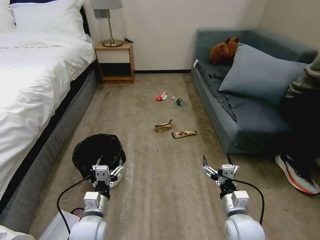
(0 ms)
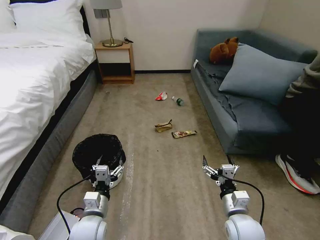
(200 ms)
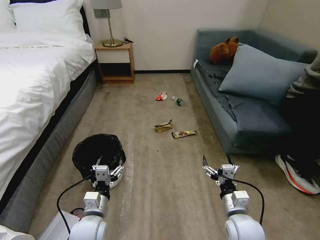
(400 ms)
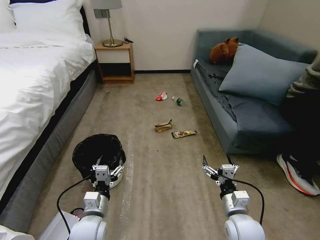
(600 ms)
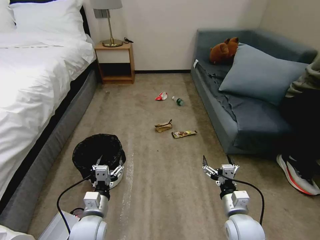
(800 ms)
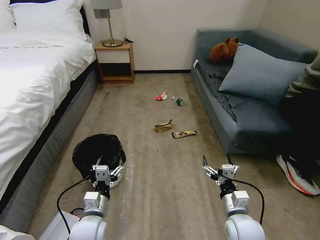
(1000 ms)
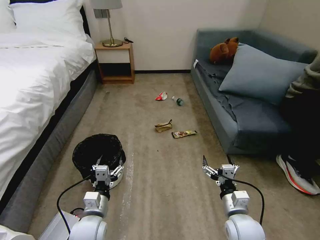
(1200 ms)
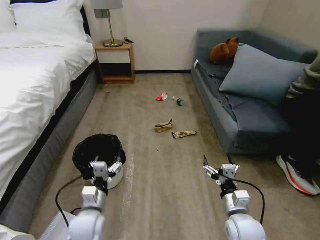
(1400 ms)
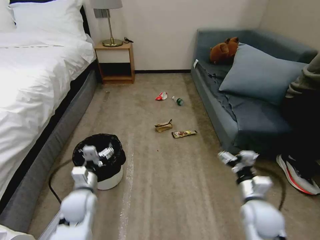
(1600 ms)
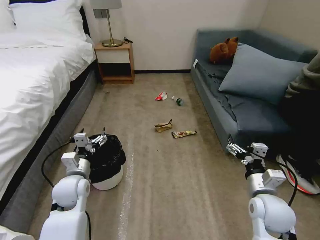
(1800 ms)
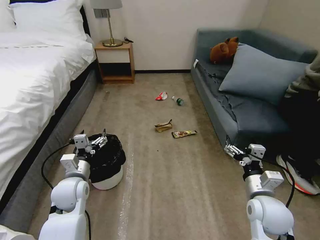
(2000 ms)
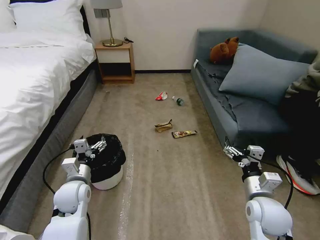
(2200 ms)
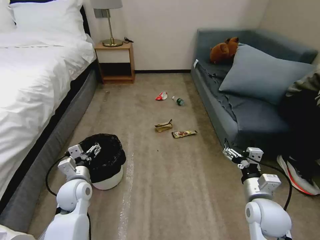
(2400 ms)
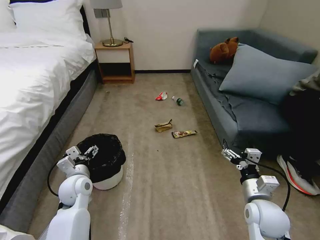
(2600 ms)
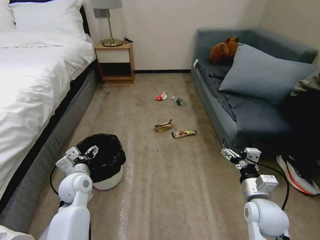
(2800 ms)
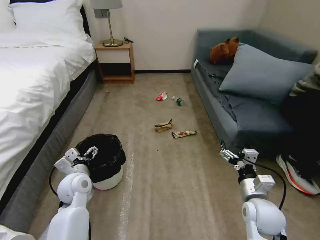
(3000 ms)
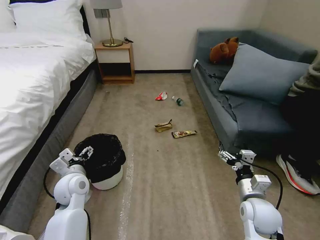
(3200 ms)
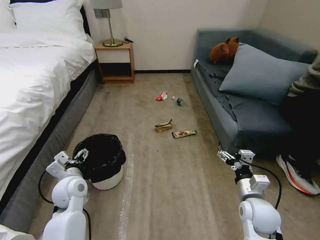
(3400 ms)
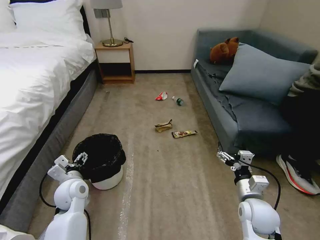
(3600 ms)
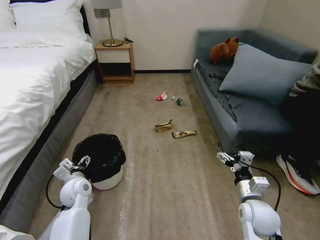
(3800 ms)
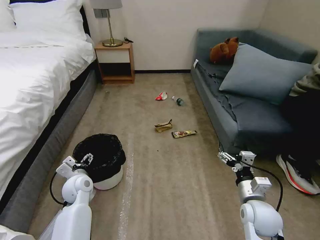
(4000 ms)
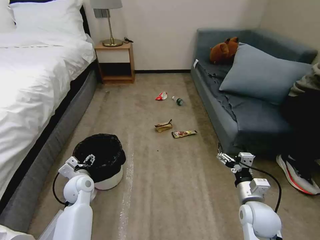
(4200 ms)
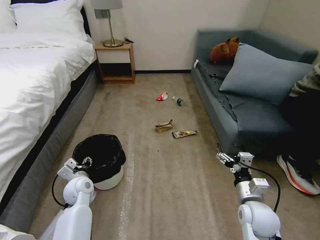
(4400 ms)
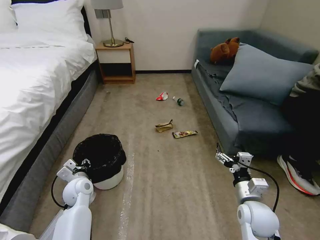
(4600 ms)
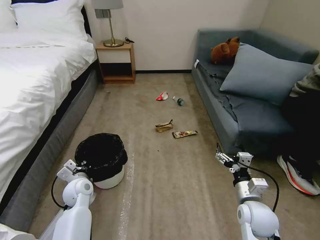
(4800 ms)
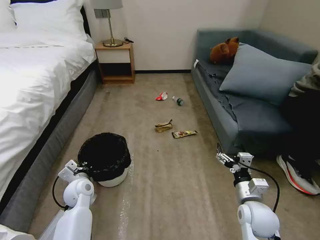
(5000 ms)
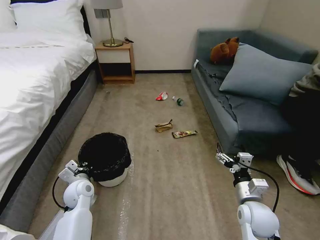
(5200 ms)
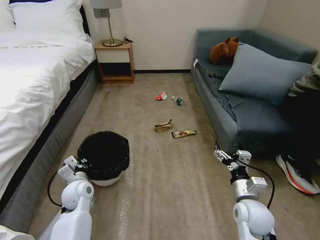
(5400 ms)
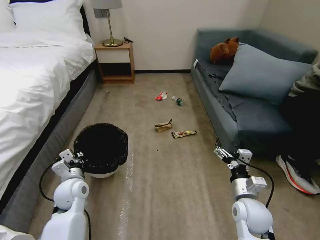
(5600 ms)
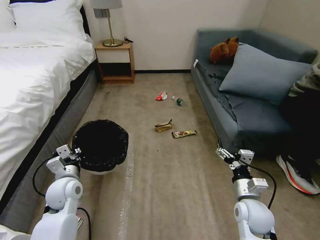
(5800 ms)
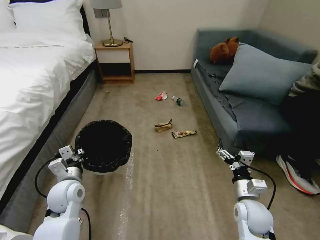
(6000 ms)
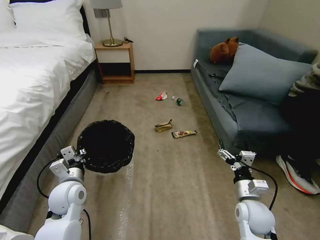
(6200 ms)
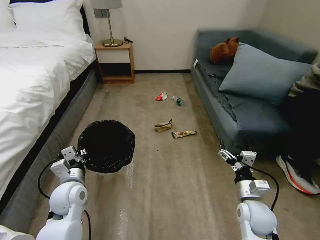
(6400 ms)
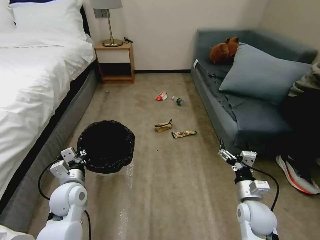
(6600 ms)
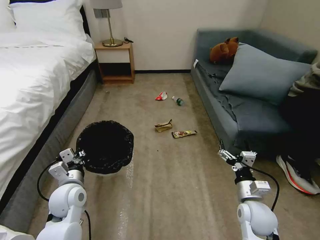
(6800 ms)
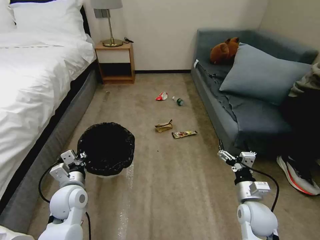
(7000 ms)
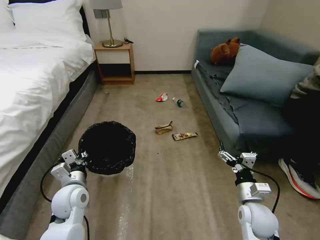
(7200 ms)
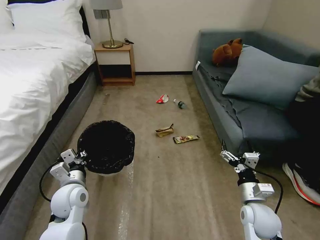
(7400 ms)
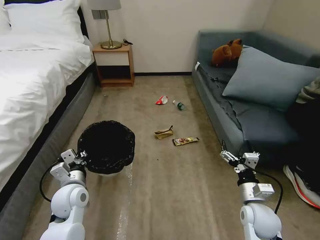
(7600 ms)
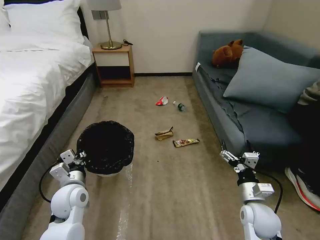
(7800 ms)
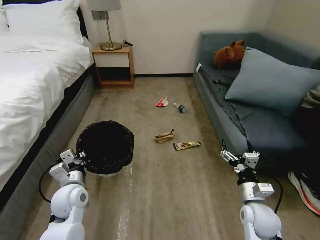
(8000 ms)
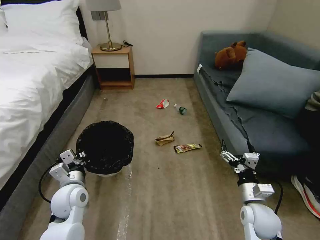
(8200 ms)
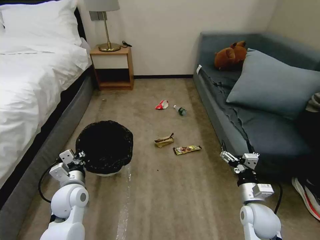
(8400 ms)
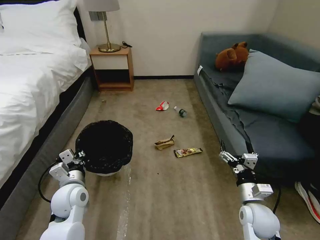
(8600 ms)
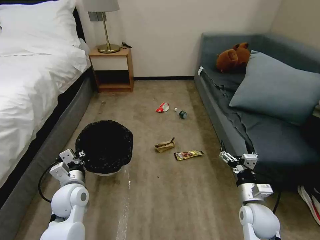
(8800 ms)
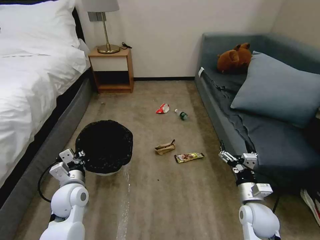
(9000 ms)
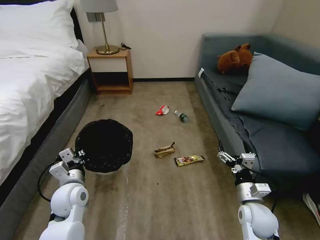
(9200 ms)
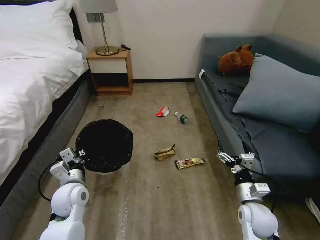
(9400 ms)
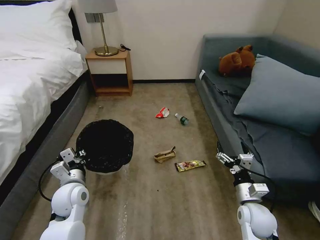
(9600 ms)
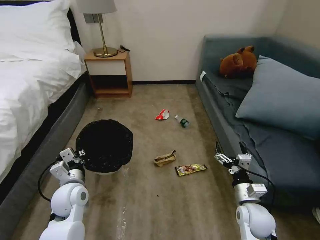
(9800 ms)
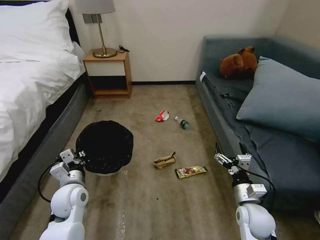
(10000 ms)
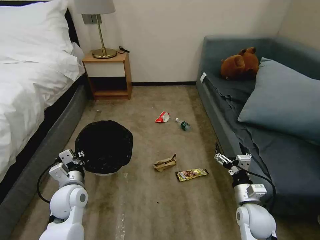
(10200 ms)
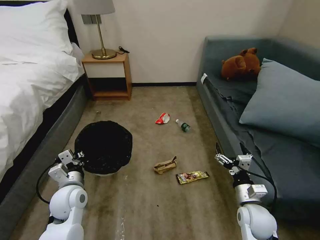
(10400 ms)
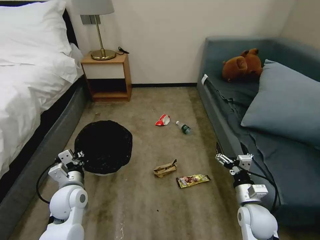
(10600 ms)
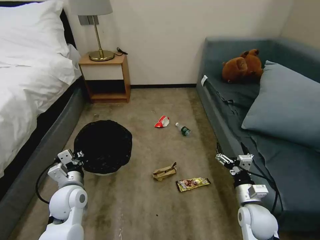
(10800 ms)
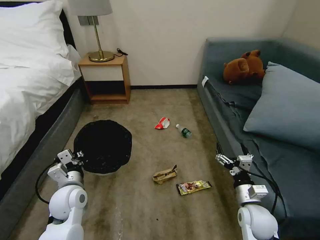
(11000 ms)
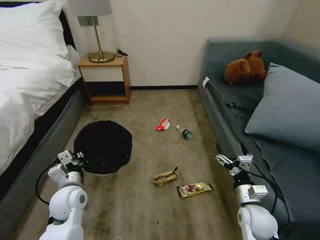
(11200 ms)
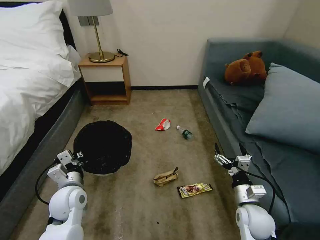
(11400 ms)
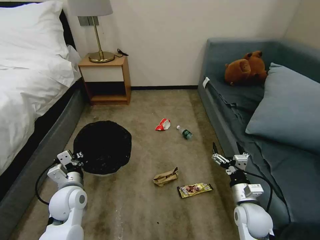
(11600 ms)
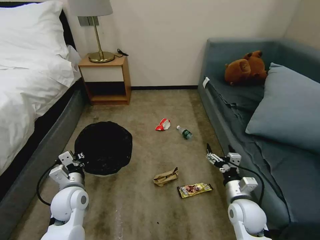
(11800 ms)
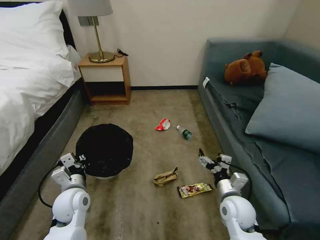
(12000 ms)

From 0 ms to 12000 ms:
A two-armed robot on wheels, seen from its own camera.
Task of the whole recording: Pick up the trash bin, then pick up the garbage on the floor and place it into the trash bin.
From 3000 ms to 4400 ms: The left gripper goes approximately 5 cm downward, and closes.
From 4400 ms to 6000 ms: The left gripper travels upward by roughly 5 cm, and closes.
From 6000 ms to 7600 ms: There are only small adjustments of the grippers.
From 10400 ms to 12000 ms: The right gripper shifts roughly 5 cm to the left.

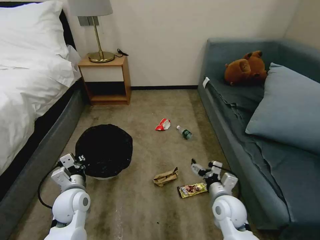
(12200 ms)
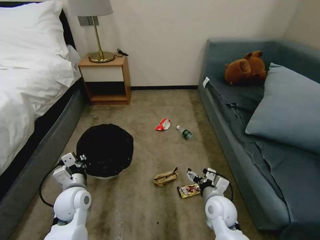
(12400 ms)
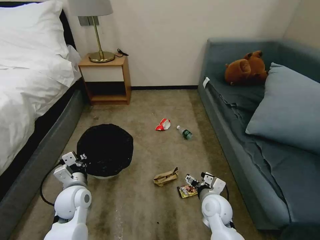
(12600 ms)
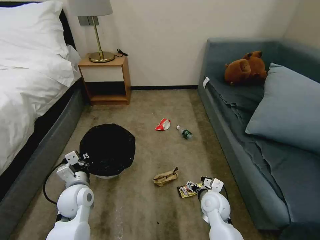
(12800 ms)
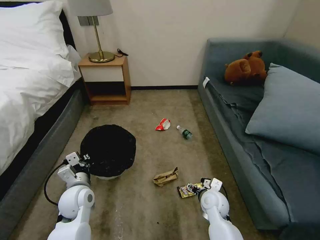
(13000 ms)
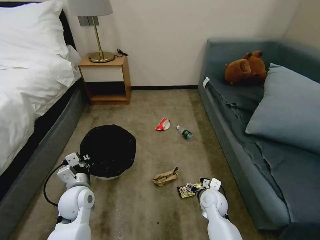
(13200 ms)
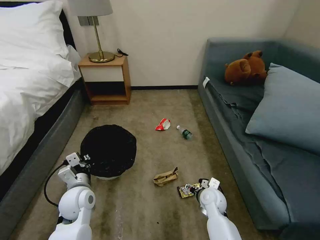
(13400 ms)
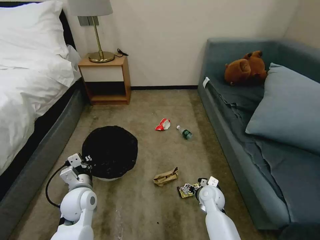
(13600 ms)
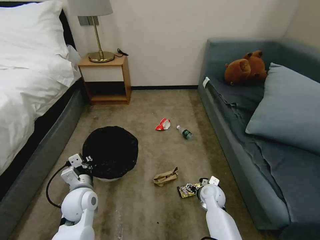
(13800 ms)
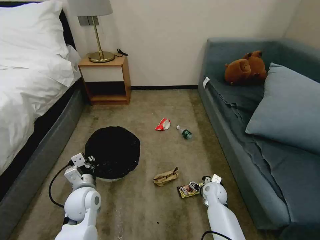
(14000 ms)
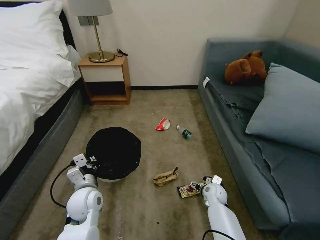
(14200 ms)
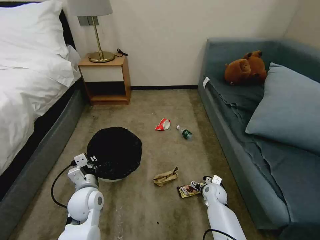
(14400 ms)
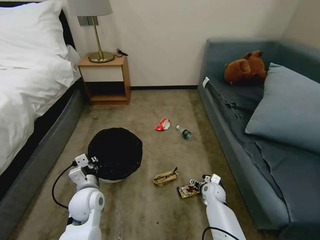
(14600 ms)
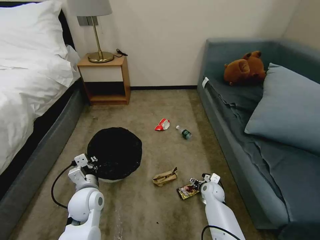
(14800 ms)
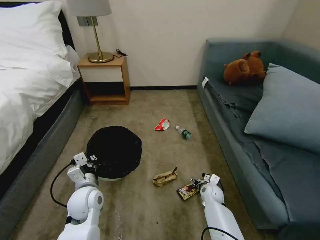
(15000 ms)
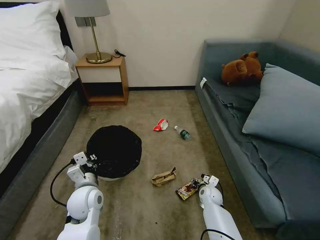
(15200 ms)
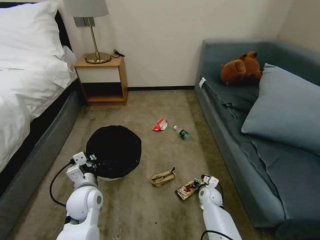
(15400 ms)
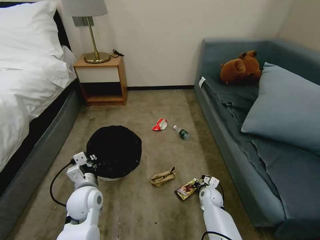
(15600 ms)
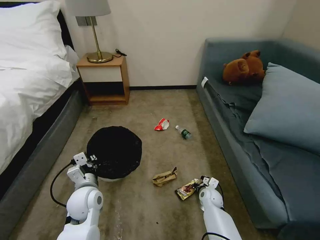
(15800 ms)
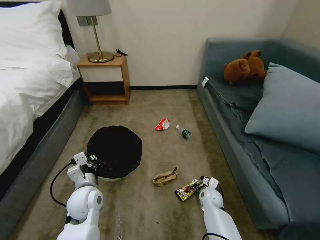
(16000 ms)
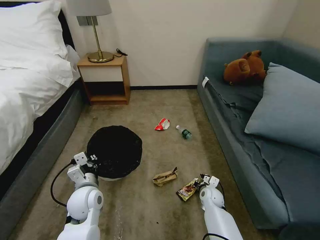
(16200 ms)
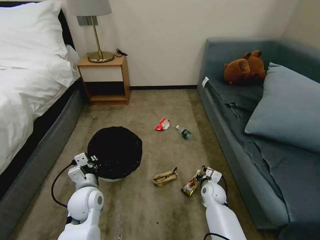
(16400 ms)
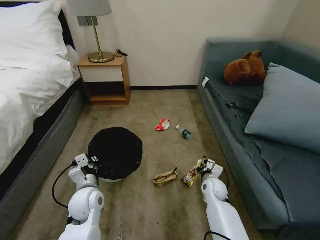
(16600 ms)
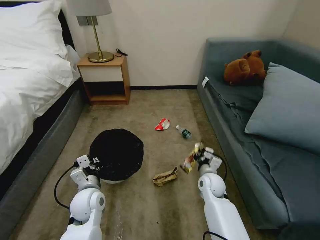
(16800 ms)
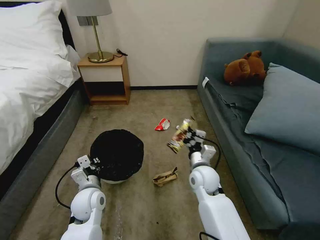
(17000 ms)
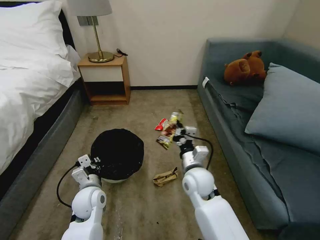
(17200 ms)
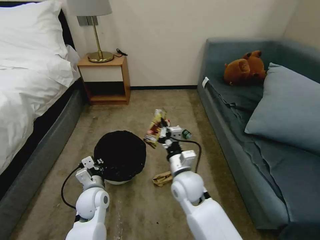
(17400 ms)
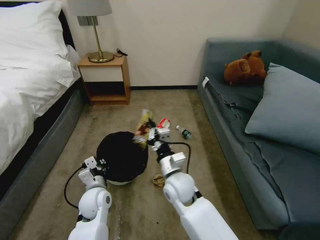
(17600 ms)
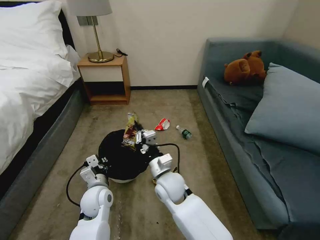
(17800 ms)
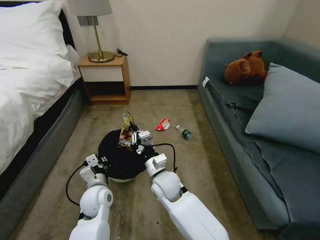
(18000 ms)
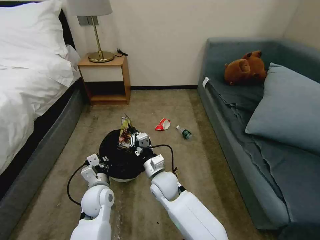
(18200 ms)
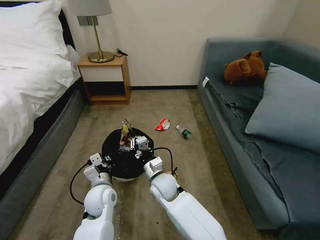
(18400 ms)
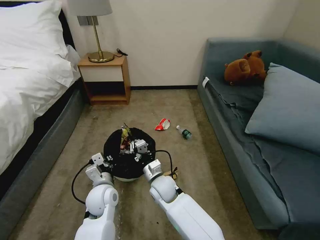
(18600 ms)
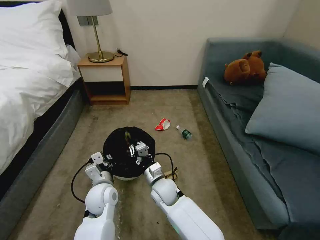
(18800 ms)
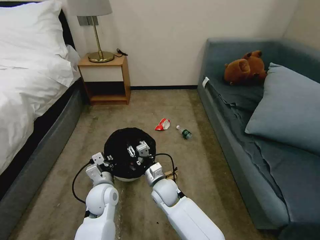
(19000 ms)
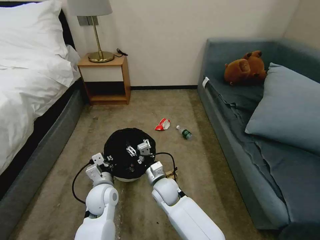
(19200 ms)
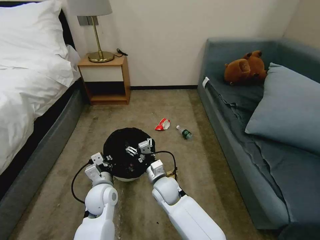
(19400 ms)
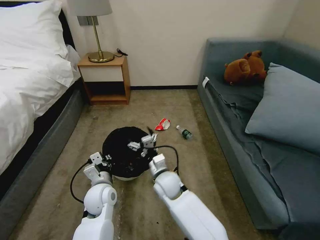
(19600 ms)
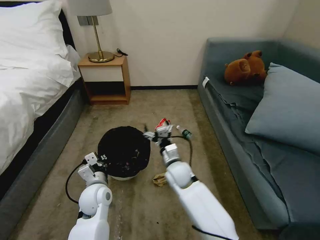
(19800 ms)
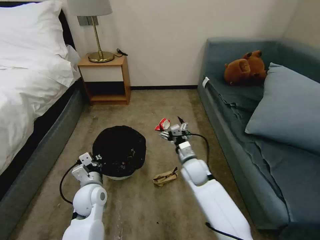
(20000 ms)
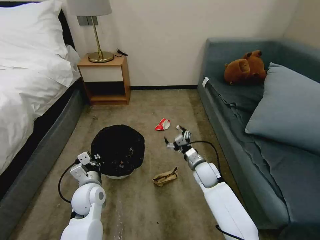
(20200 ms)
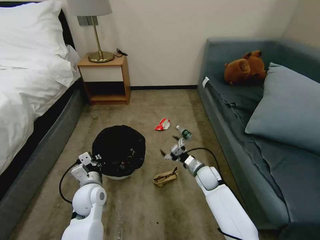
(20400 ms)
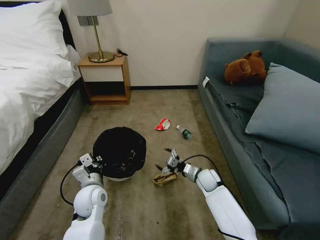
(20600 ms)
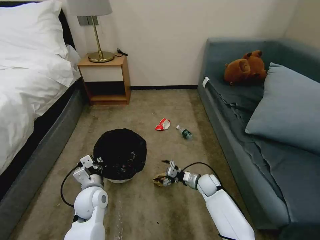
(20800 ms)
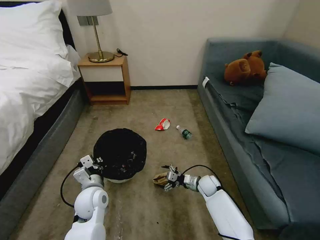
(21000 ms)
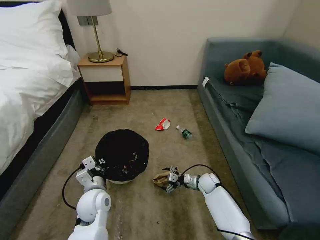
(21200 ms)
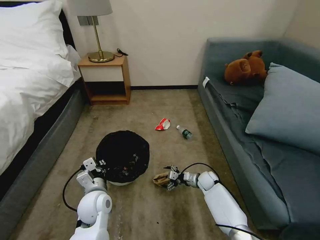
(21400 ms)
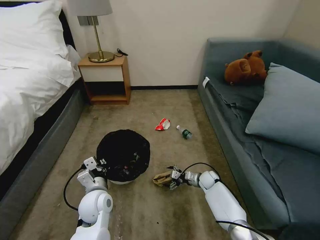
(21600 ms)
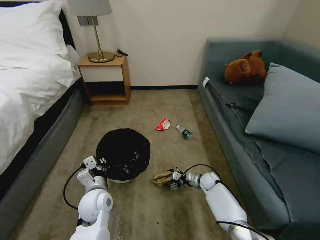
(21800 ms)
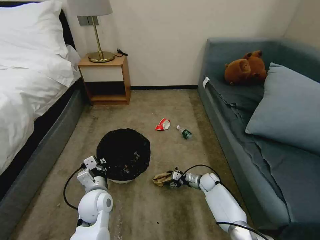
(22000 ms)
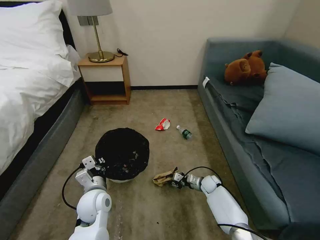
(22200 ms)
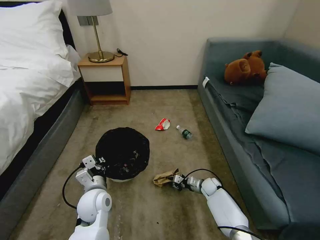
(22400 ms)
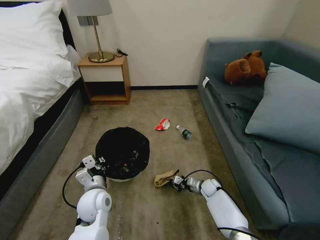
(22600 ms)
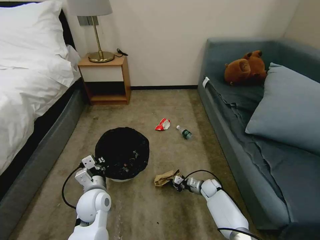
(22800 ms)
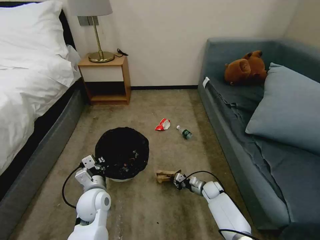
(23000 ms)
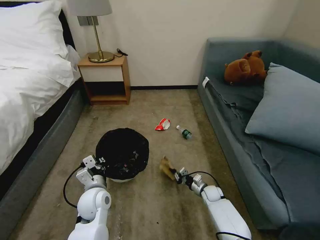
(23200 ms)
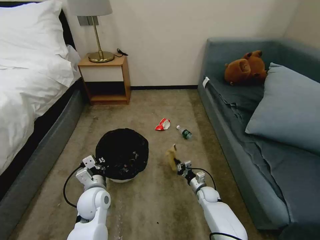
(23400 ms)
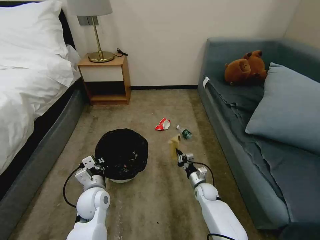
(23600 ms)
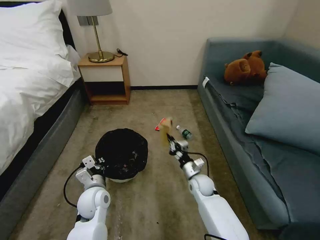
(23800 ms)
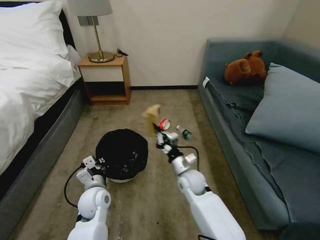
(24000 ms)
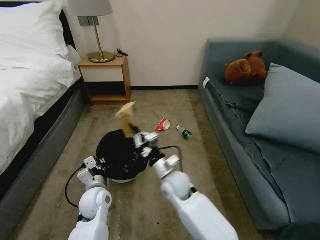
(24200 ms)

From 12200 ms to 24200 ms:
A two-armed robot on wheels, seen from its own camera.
Task of the whole recording: Pick up the trash bin, then pick up the garbage on the floor and place it into the trash bin.
From 12200 ms to 13800 ms: The right gripper heads downward and forward, covering approximately 15 cm.
From 13800 ms to 15200 ms: The right gripper goes about 5 cm downward, and closes.
From 15200 ms to 16600 ms: The right gripper goes roughly 10 cm upward, and closes.
From 16600 ms to 18200 ms: The right gripper shifts roughly 25 cm to the left and upward.
From 18200 ms to 19800 ms: The right gripper moves to the right, some 5 cm, and opens up.
From 19800 ms to 21200 ms: The right gripper heads to the right and downward, covering some 25 cm.
From 21200 ms to 22600 ms: The right gripper goes approximately 5 cm downward, and closes up.
From 22600 ms to 24200 ms: The right gripper heads upward and to the left, covering approximately 30 cm.
